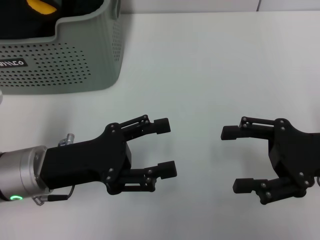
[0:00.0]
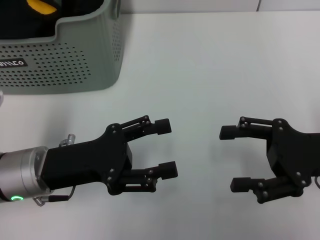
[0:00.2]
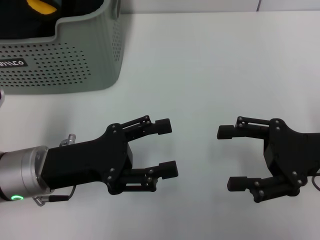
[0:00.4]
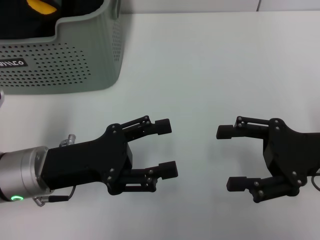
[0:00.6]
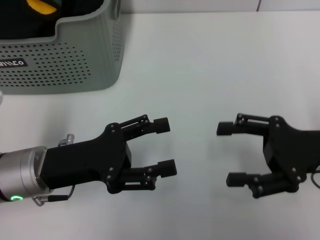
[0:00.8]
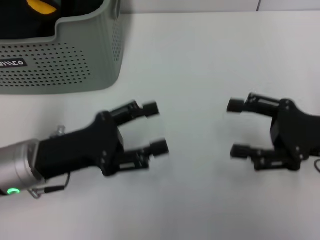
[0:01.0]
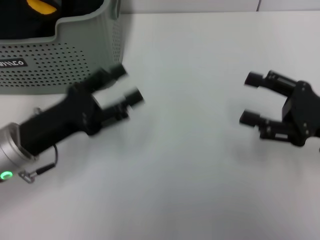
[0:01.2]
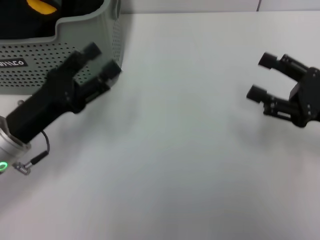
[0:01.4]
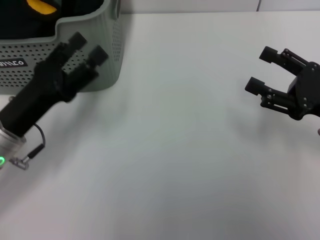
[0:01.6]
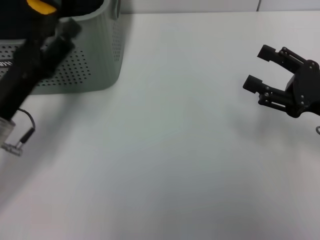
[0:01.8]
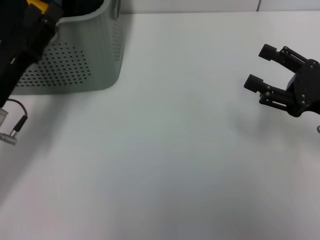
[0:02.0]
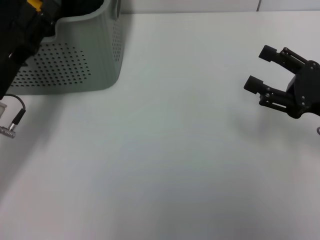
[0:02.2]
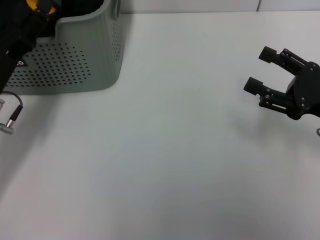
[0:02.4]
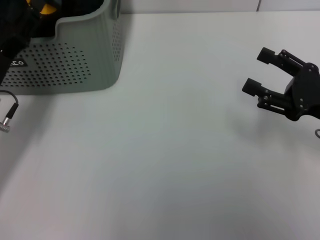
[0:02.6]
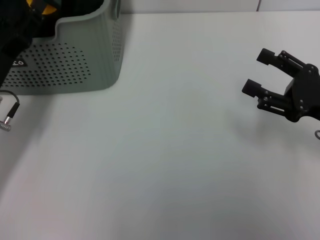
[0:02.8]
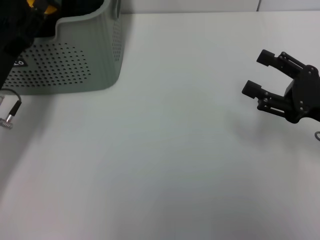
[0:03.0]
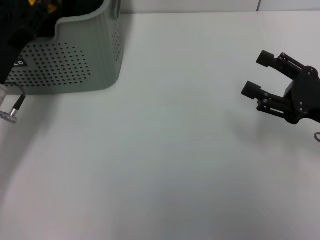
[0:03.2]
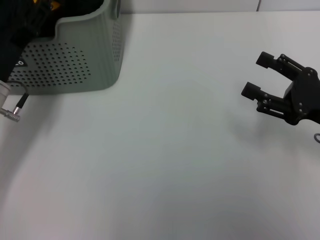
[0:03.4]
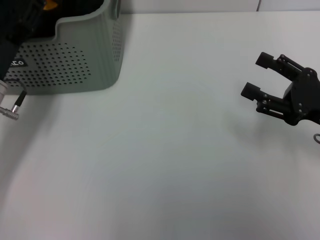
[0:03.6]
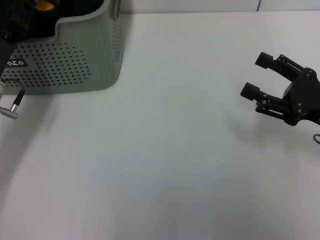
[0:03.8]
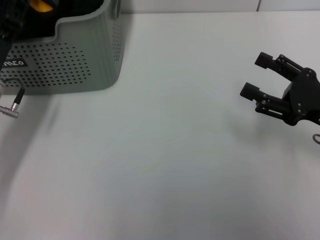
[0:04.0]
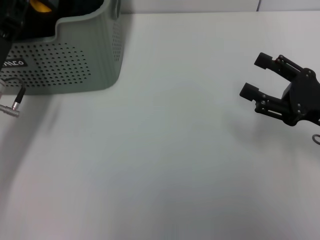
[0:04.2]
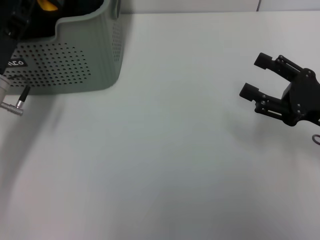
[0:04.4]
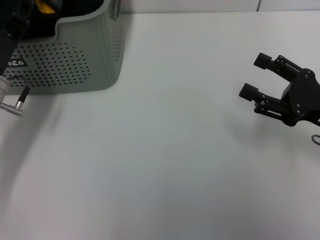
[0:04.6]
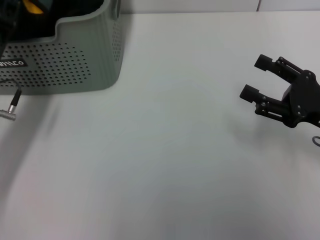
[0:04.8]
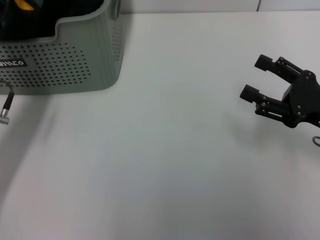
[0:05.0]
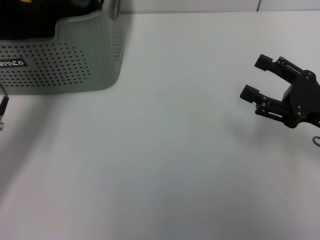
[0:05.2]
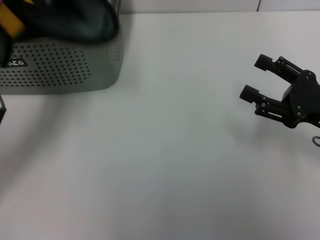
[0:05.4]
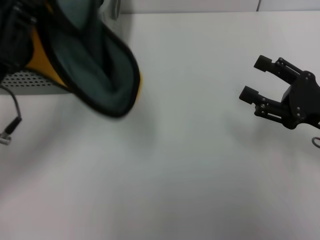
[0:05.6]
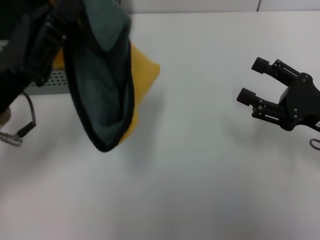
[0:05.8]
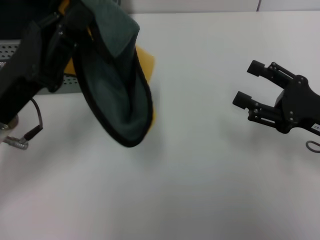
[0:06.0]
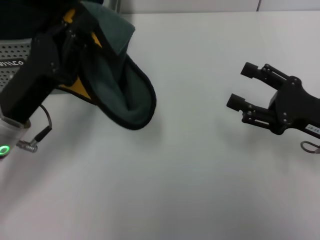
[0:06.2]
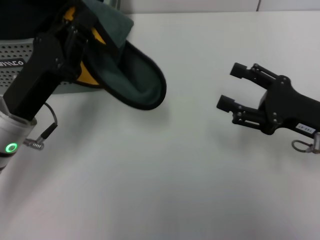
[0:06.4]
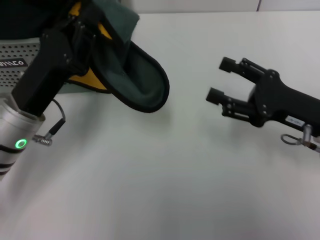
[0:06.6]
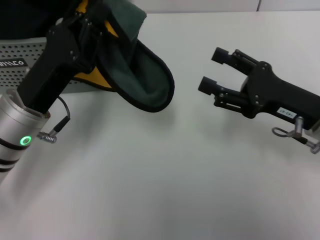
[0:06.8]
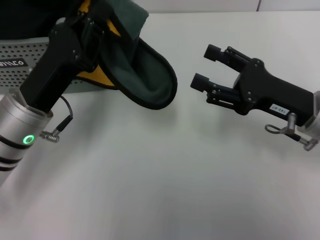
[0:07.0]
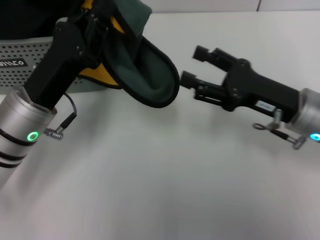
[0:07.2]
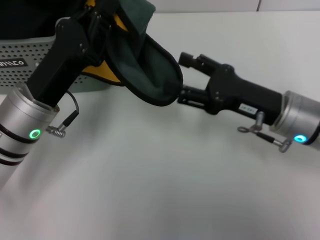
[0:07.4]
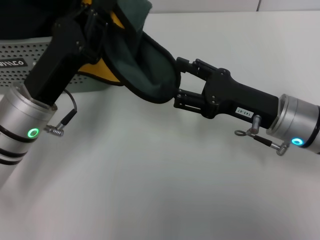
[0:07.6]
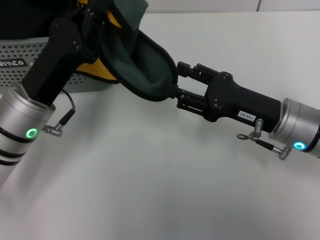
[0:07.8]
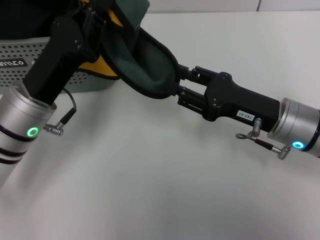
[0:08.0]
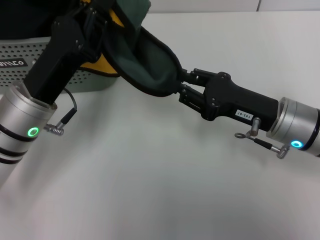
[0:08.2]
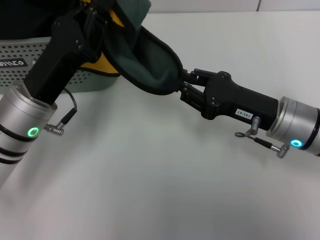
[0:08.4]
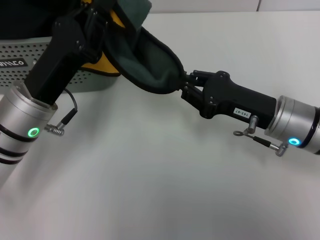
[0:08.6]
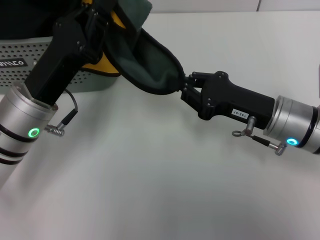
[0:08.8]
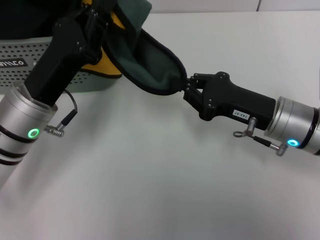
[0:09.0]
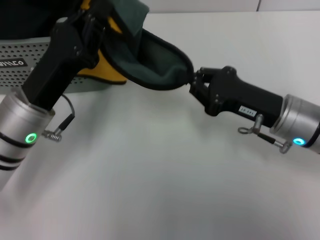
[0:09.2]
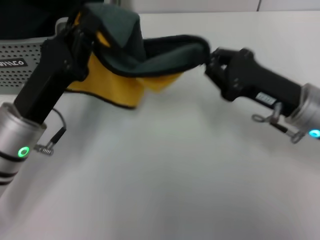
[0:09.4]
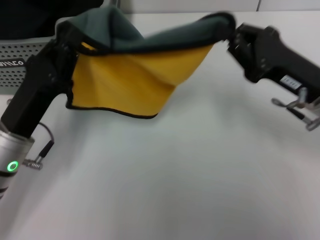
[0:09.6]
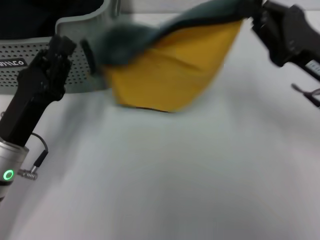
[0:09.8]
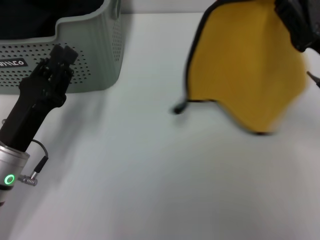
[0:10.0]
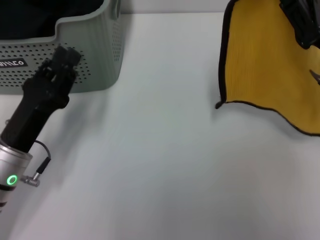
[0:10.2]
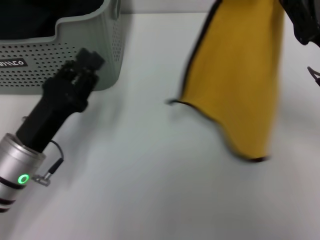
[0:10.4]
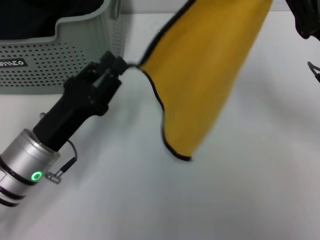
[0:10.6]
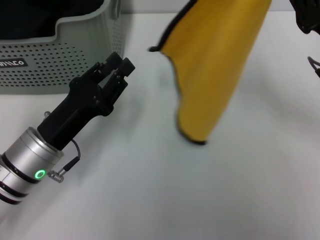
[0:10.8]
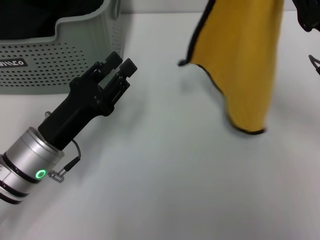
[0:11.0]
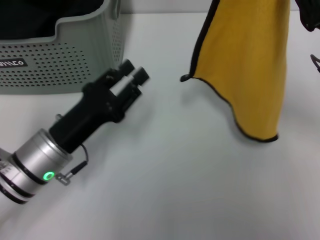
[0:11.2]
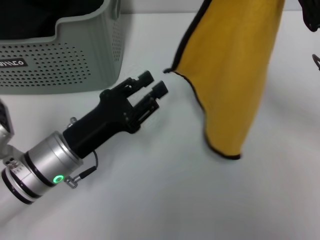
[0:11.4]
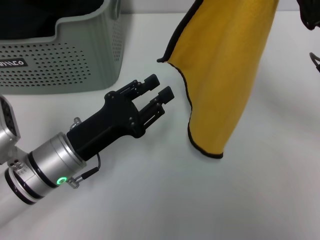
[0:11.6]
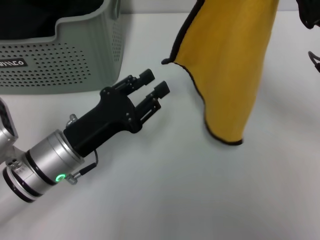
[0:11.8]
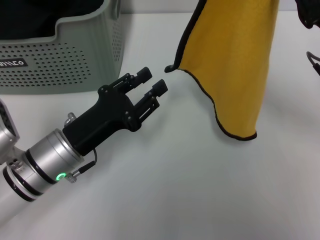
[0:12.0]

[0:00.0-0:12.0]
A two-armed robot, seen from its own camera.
Task of the whole recording: pick up the towel from the storage box and lay it flat on the table.
Step, 0:00.0 to 0:04.4: Pick up a towel with the left gripper.
Step, 0:04.6 to 0:08.4: Spread the towel flat with the left gripper.
0:01.6 to 0:03.0: The left gripper shifts approximately 5 cm forward.
0:03.0 to 0:04.4: The left gripper closes up.
0:04.4 to 0:06.0: The left gripper shifts roughly 5 cm backward.
0:06.0 to 0:07.6: The right gripper heads to the left, covering about 10 cm.
0:07.6 to 0:09.0: The right gripper closes.
0:09.0 to 0:10.4: The left gripper changes place by some 5 cm, and opens up; the right gripper moves upward and to the right, roughly 10 cm.

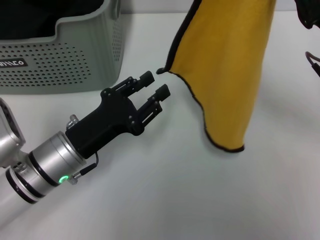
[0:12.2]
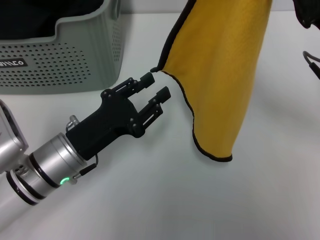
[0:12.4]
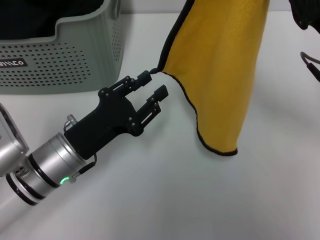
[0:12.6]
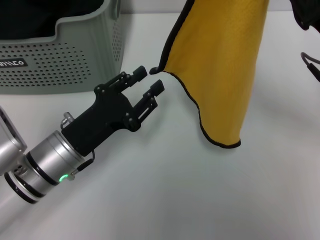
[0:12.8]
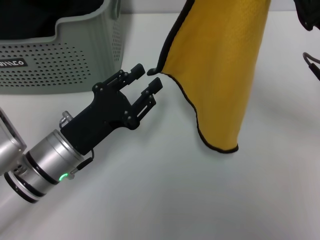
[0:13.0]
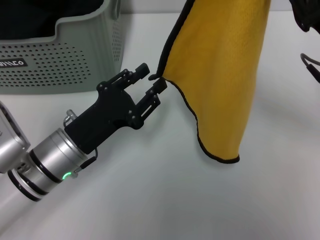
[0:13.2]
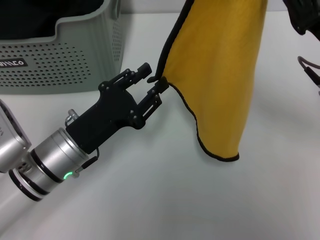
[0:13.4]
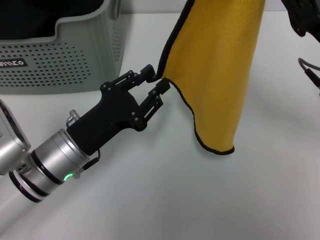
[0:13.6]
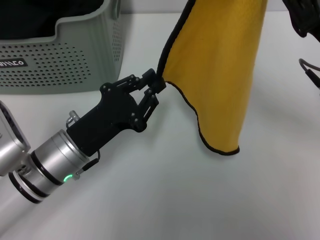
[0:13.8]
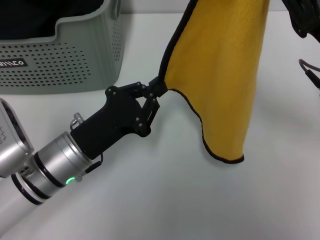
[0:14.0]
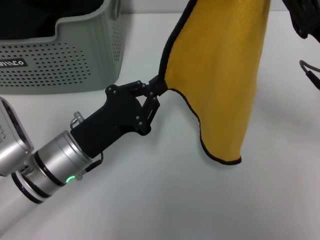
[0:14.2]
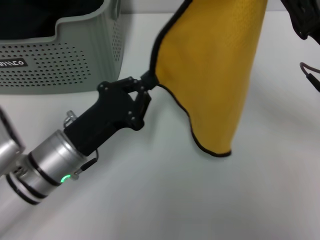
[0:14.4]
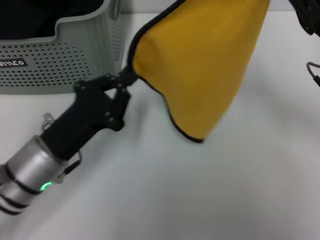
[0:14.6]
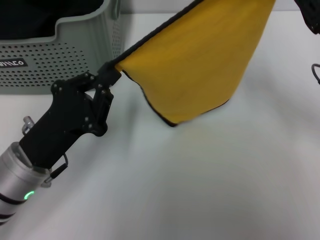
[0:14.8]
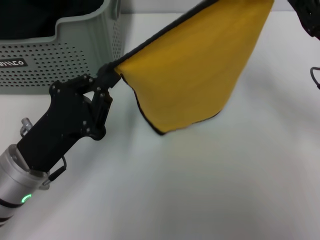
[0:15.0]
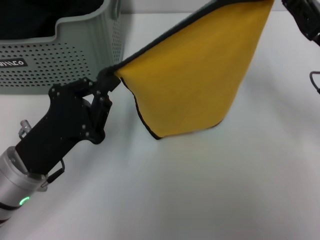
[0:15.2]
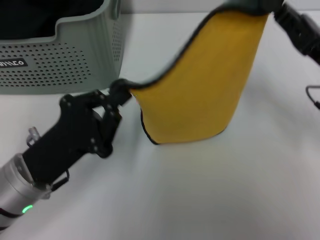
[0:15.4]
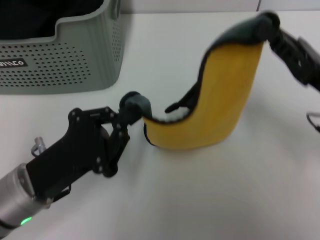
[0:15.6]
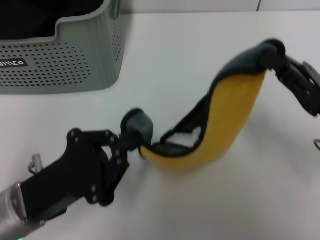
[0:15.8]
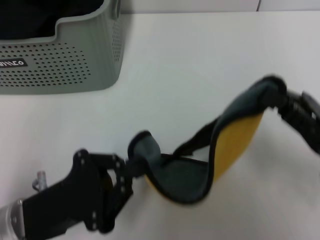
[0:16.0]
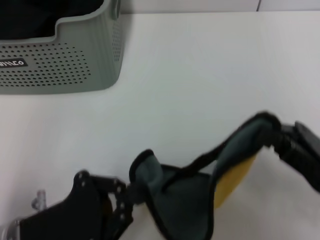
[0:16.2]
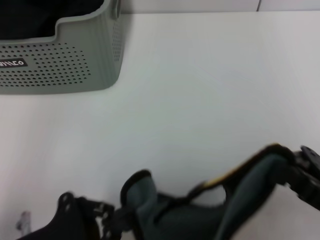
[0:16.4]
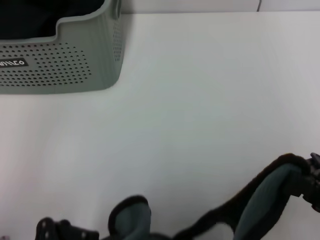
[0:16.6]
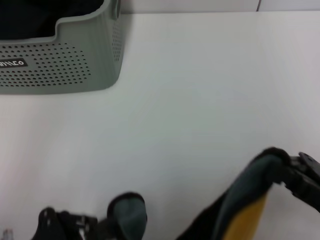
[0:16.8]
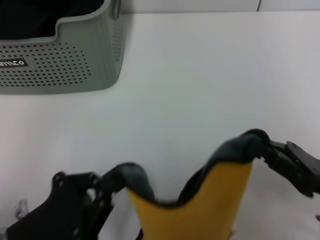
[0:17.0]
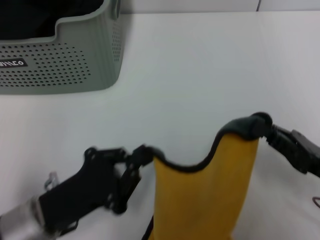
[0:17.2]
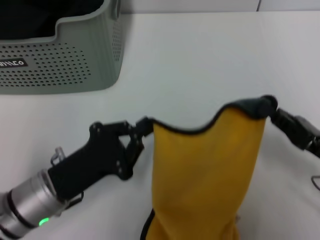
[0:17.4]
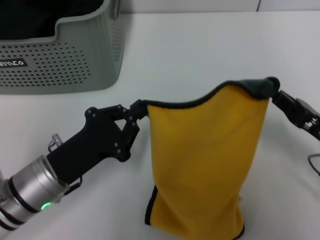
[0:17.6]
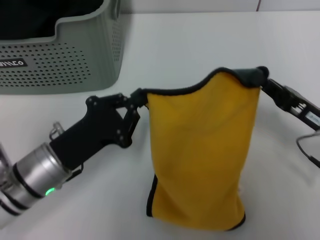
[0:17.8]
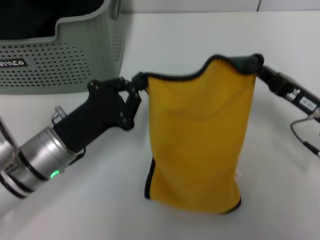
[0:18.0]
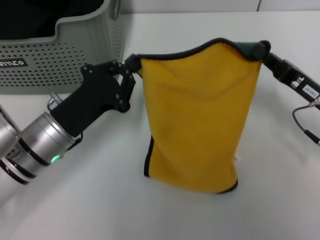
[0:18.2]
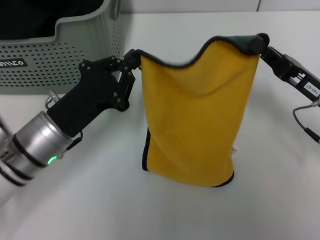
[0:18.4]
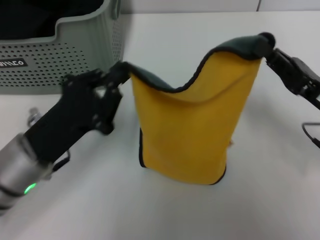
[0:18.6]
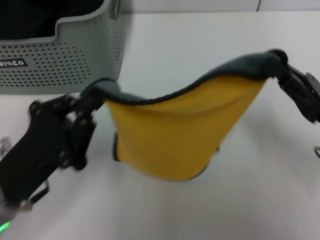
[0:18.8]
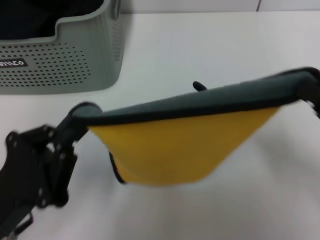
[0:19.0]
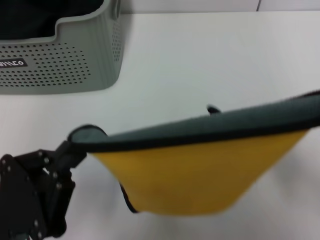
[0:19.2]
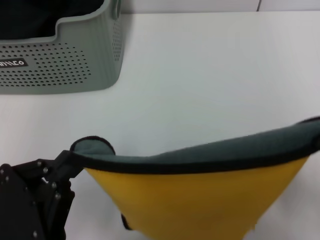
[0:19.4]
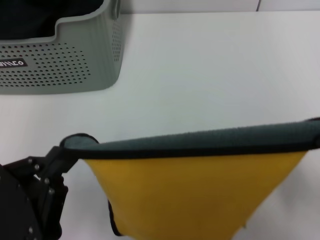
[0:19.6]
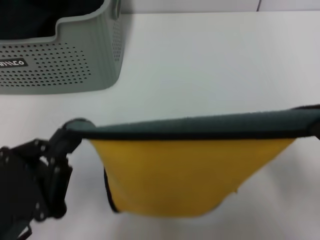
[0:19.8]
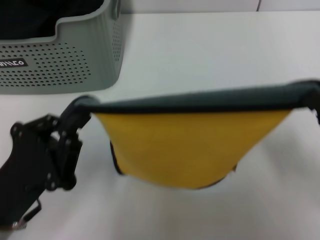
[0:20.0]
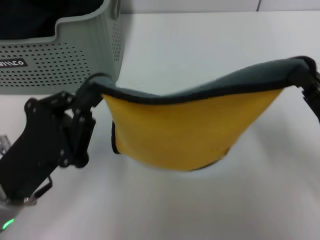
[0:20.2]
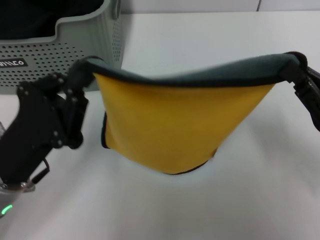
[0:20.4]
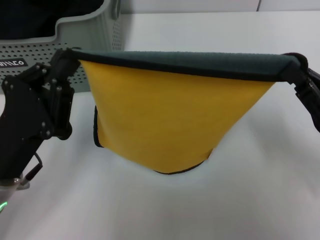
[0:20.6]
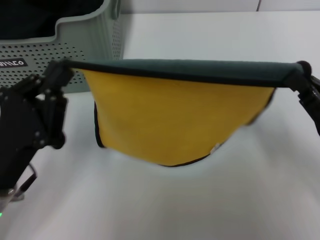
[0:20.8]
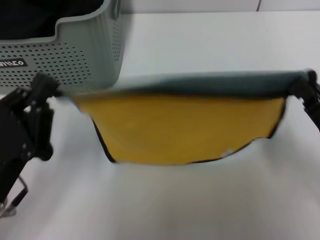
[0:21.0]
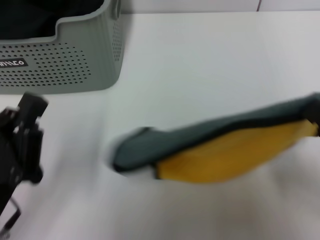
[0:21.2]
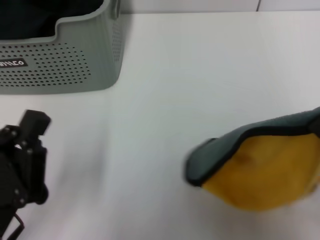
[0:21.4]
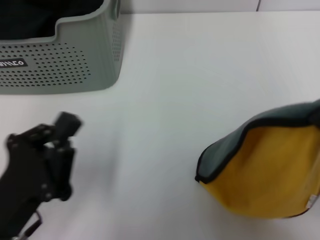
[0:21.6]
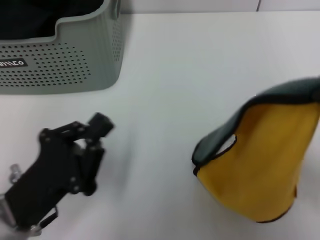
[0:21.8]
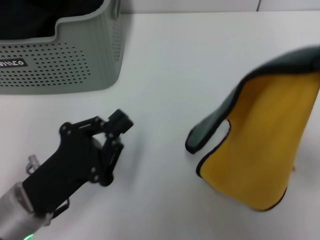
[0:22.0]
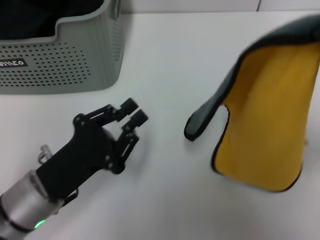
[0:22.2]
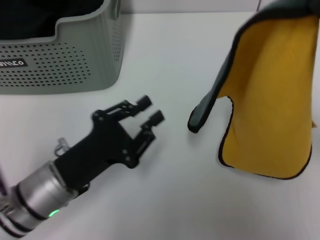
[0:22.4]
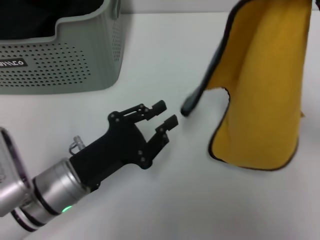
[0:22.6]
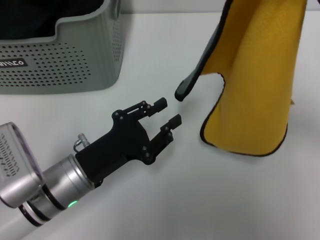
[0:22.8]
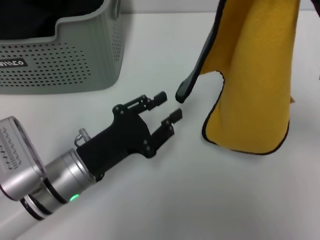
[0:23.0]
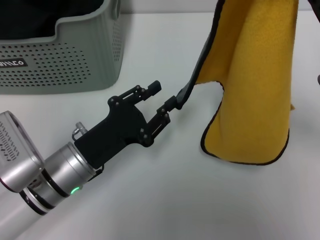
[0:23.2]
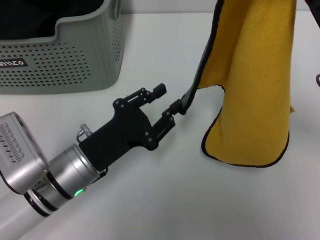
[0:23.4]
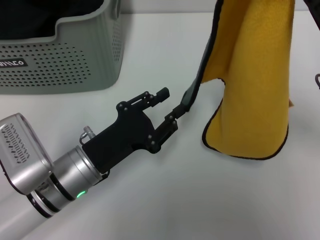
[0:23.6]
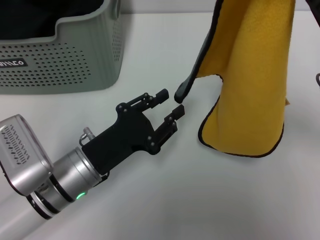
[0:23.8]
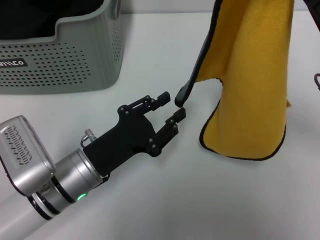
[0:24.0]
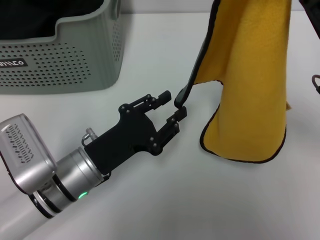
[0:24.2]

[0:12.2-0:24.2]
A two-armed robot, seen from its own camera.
Task of the whole recording: pick up the towel from the storage box and lay it flat on the table.
0:12.2 to 0:13.8: The grippers move only a little.
0:13.8 to 0:15.2: The left gripper moves some 5 cm, and closes up.
0:15.2 to 0:16.6: The two grippers go about 10 cm backward.
0:16.6 to 0:18.2: The left gripper is displaced forward by about 15 cm. The right gripper is displaced forward by roughly 10 cm.
0:18.2 to 0:19.8: Both grippers move backward, about 15 cm.
0:21.2 to 0:22.6: The right gripper goes about 10 cm forward and upward, while the left gripper heads forward and to the right, covering about 10 cm.
